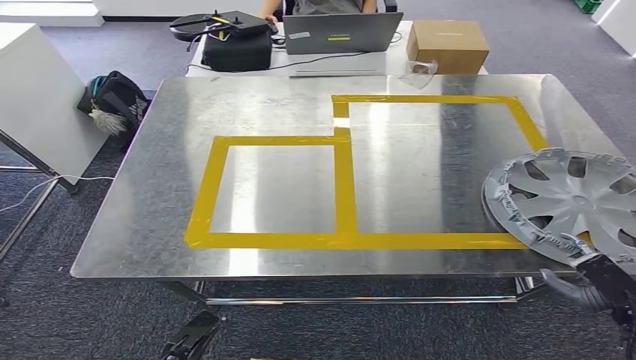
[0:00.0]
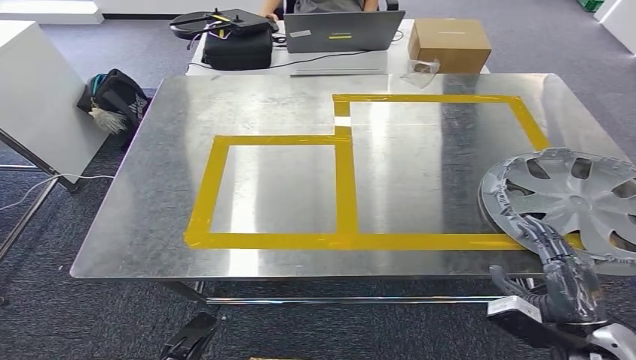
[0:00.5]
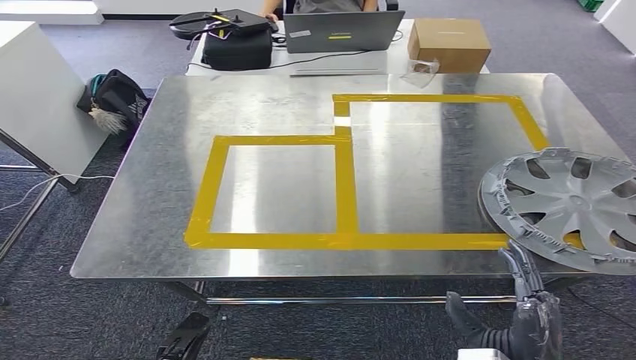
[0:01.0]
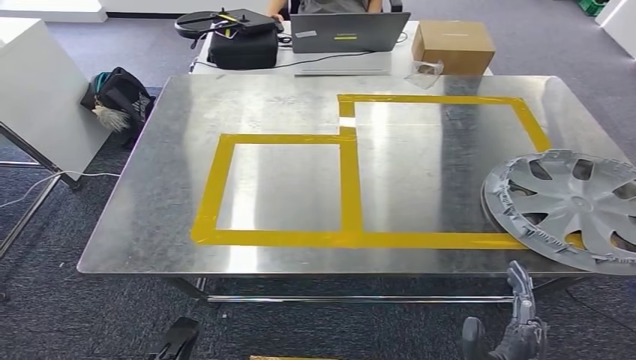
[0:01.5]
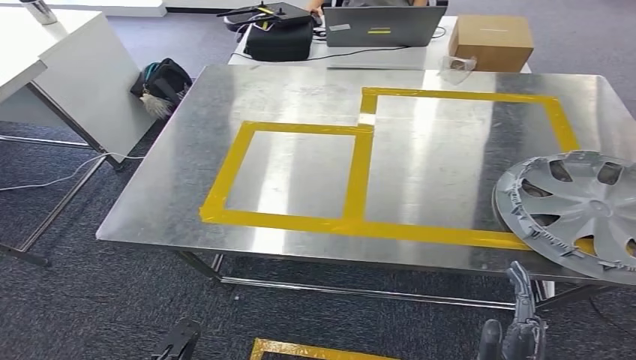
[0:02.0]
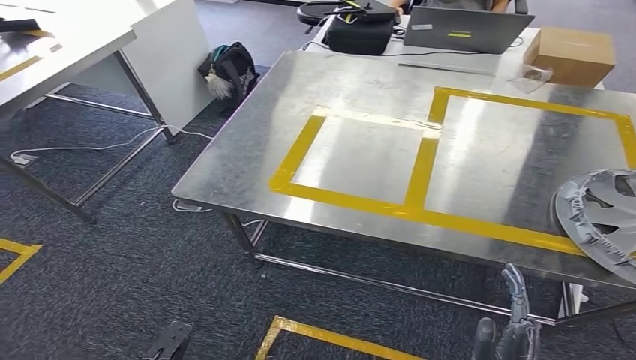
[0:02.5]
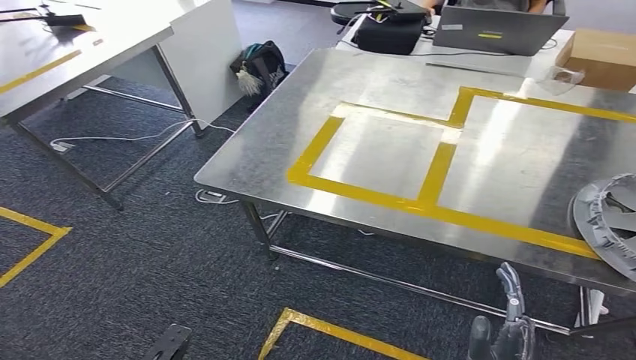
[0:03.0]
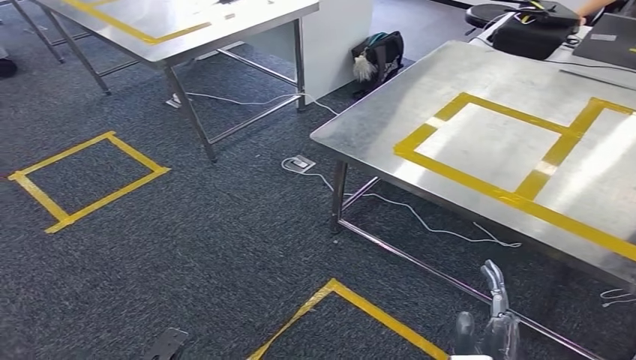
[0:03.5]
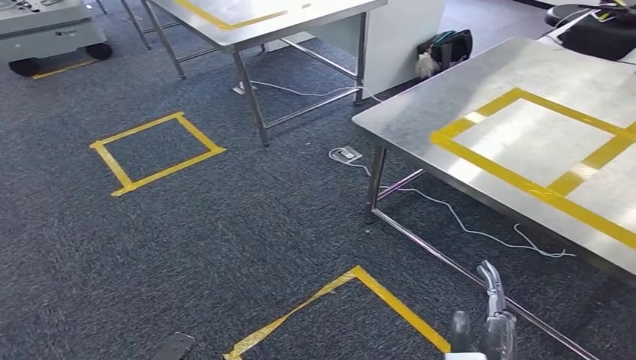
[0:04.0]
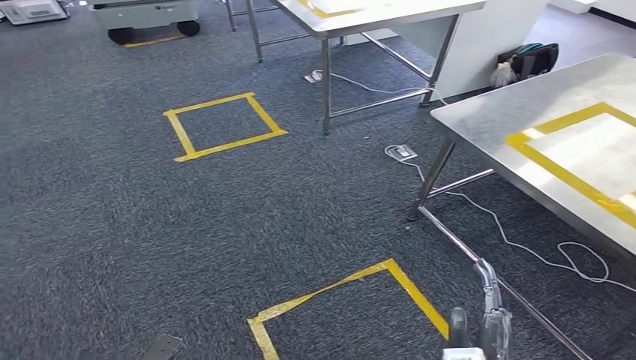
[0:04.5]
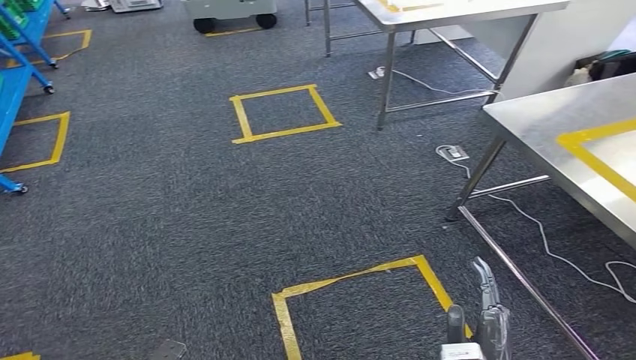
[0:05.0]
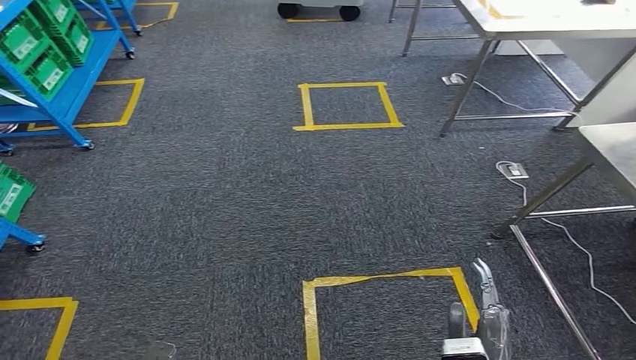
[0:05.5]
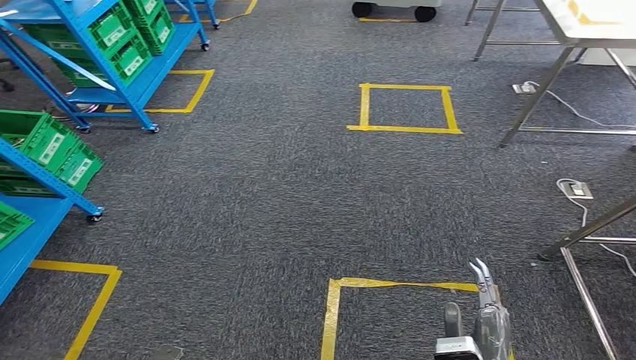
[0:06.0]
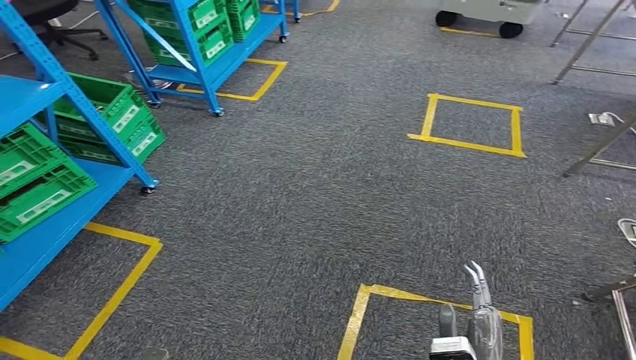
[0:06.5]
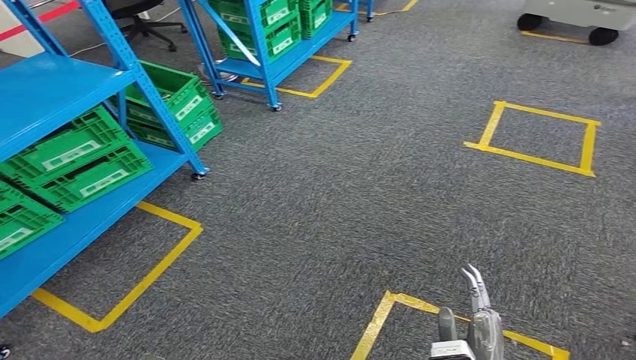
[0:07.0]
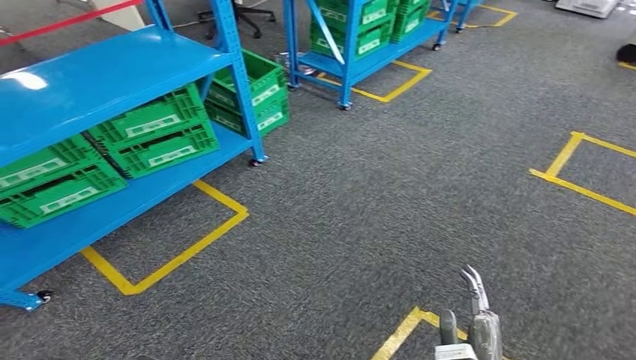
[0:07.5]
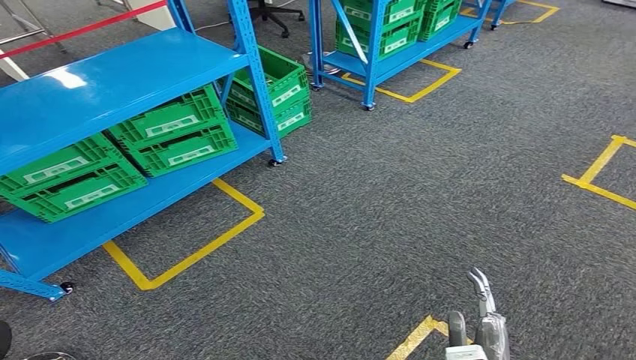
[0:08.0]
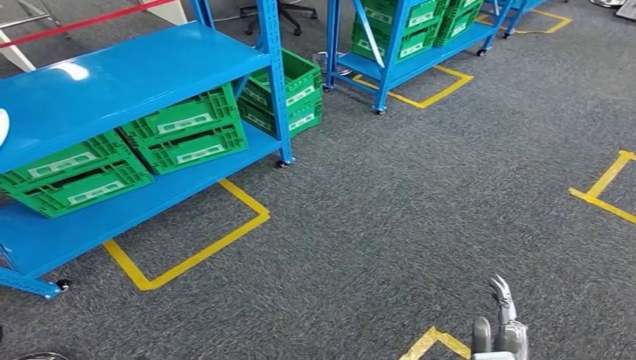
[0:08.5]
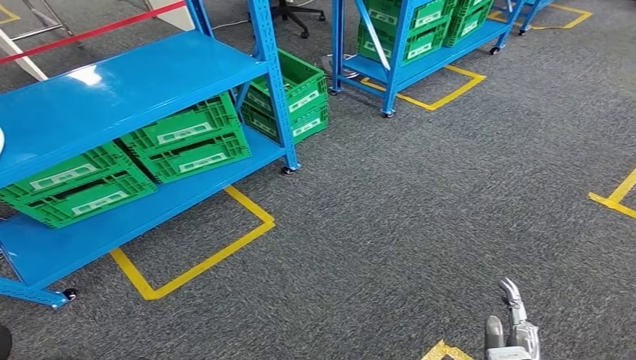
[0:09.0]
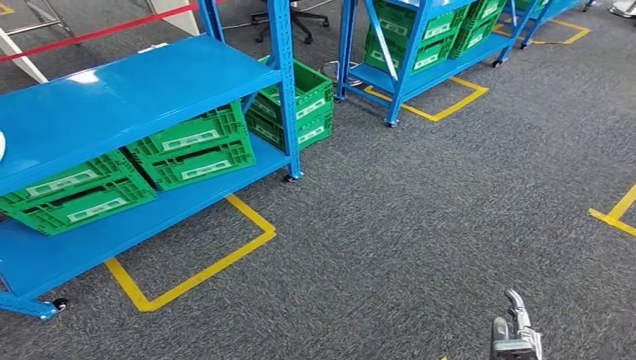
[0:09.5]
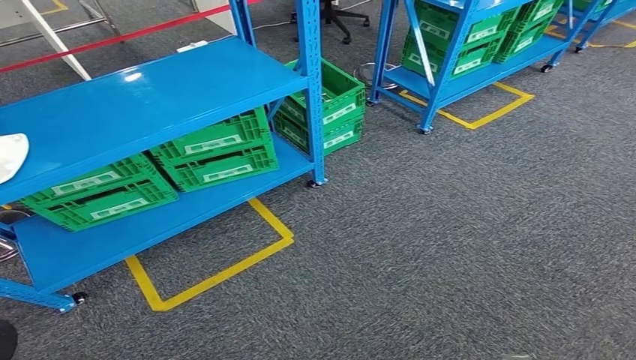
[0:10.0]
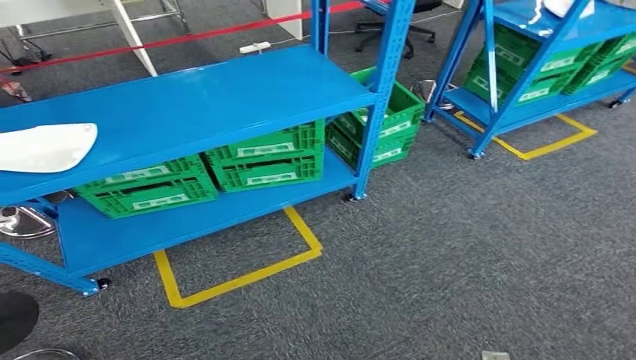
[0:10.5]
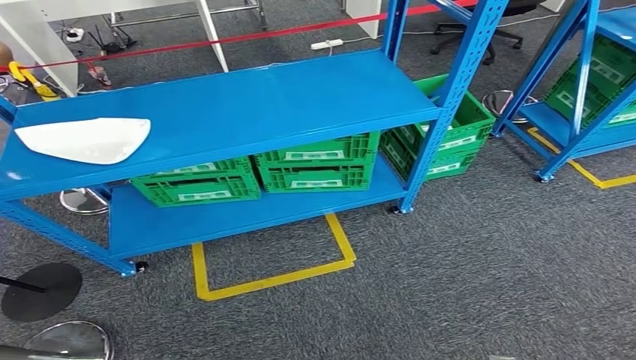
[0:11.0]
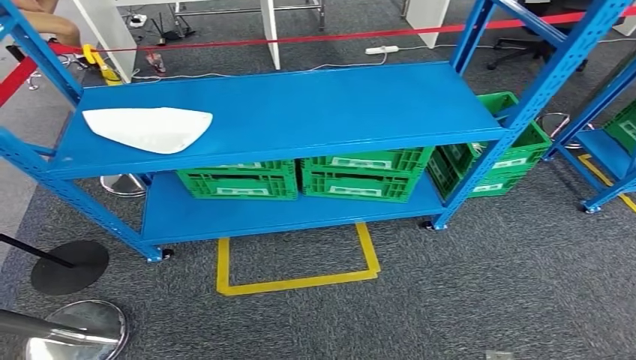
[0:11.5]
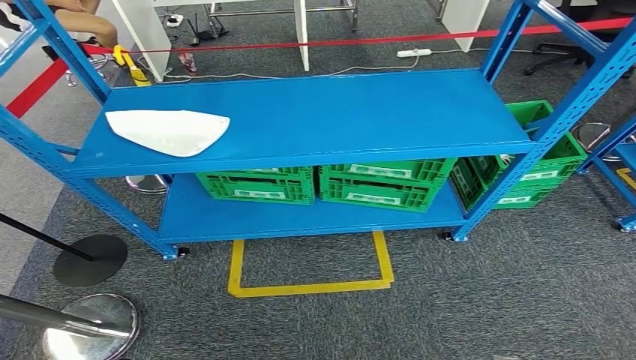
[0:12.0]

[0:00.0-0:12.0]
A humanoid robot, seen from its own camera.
Step, 0:00.0 to 0:02.0: Insert the small component into the corresponding slot on the workbench.
Step, 0:02.5 to 0:12.0: Move to the initial position at the workbench.
